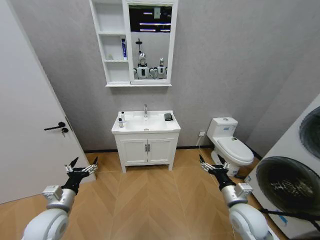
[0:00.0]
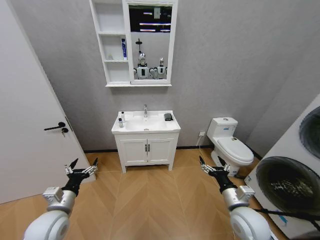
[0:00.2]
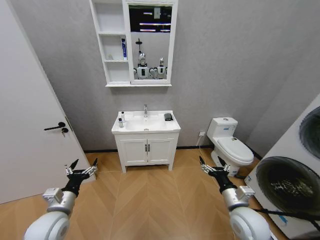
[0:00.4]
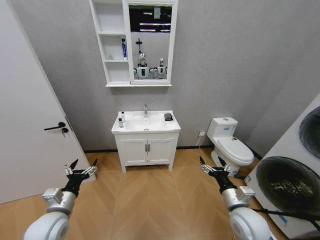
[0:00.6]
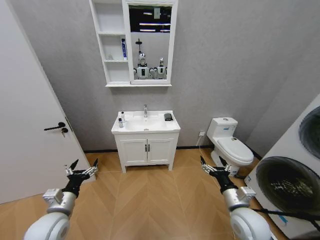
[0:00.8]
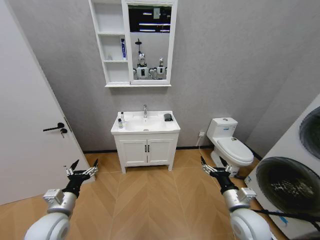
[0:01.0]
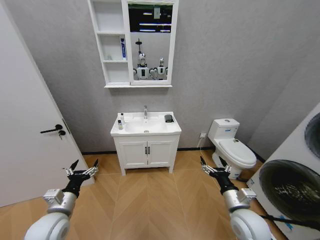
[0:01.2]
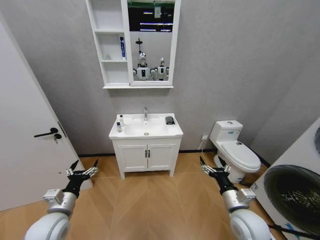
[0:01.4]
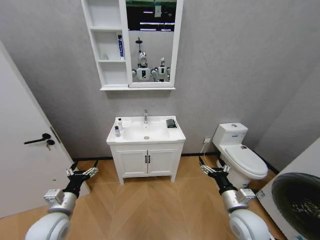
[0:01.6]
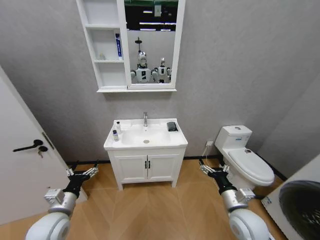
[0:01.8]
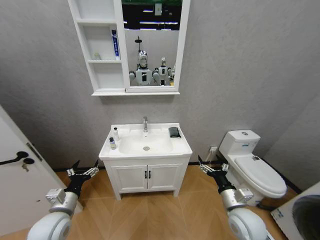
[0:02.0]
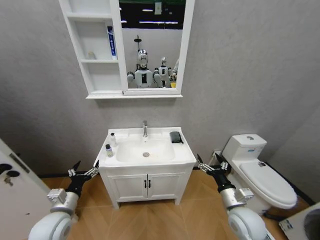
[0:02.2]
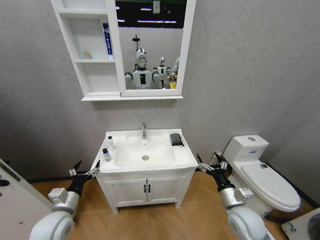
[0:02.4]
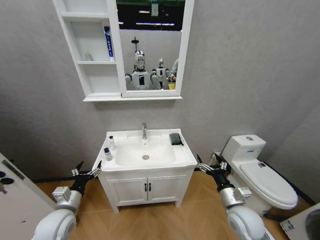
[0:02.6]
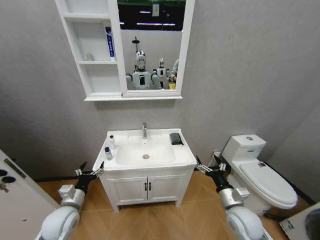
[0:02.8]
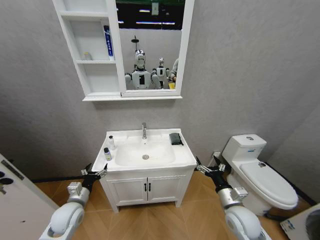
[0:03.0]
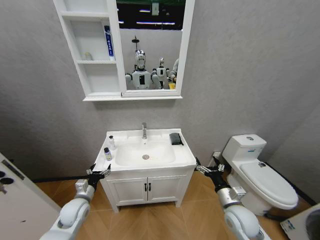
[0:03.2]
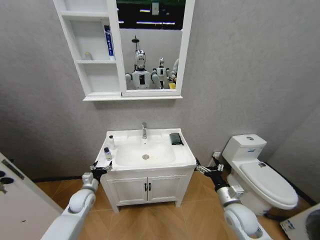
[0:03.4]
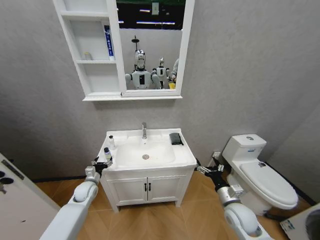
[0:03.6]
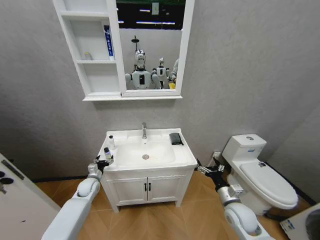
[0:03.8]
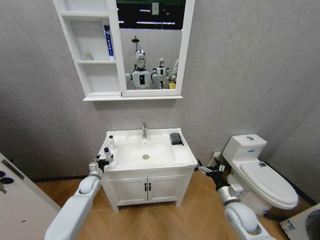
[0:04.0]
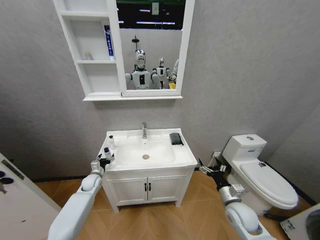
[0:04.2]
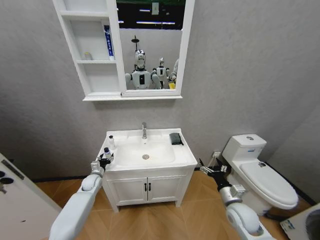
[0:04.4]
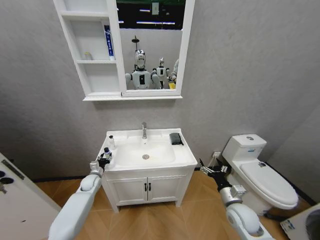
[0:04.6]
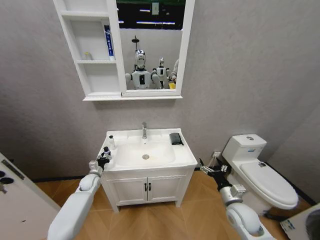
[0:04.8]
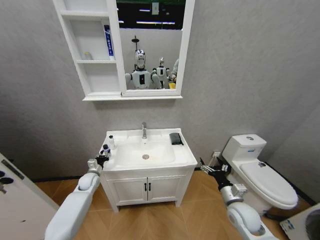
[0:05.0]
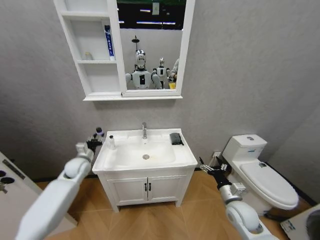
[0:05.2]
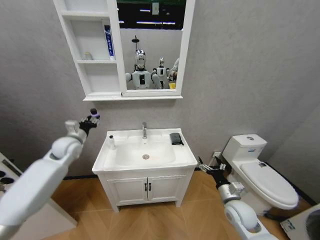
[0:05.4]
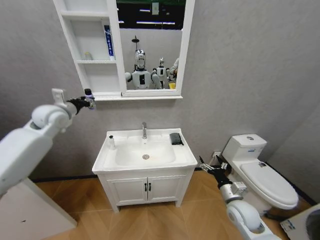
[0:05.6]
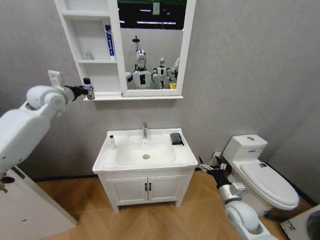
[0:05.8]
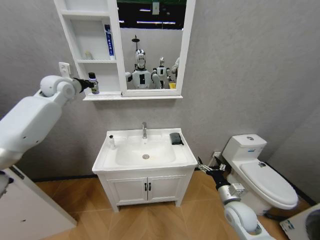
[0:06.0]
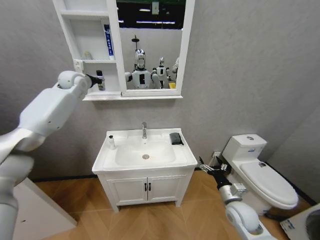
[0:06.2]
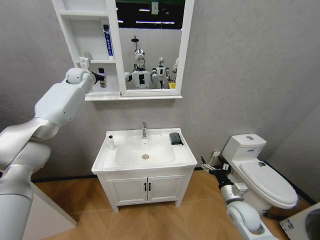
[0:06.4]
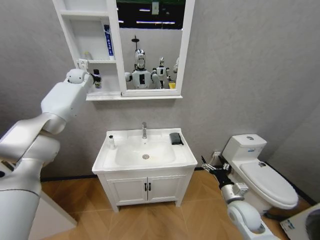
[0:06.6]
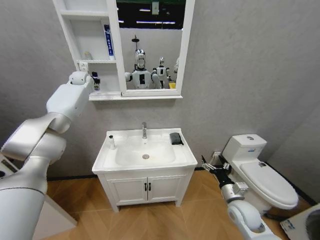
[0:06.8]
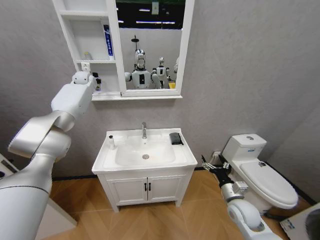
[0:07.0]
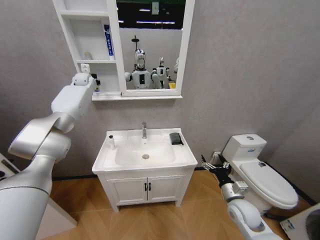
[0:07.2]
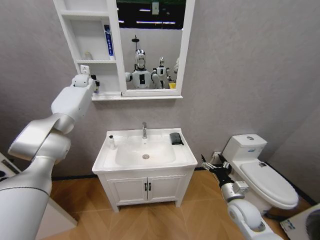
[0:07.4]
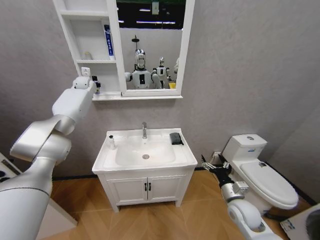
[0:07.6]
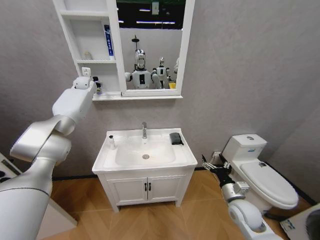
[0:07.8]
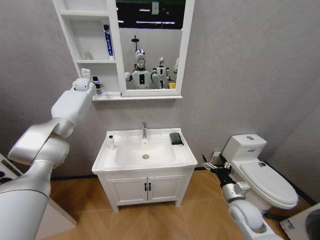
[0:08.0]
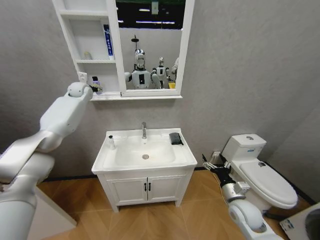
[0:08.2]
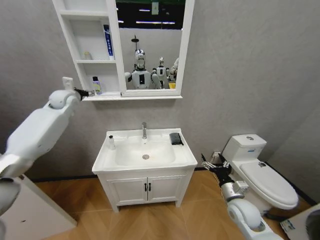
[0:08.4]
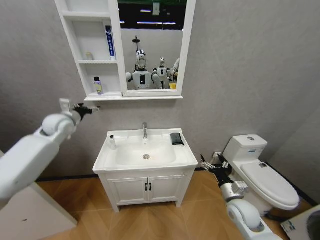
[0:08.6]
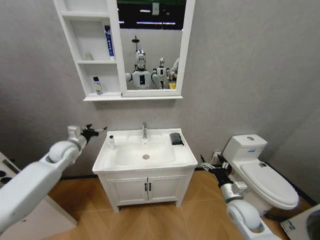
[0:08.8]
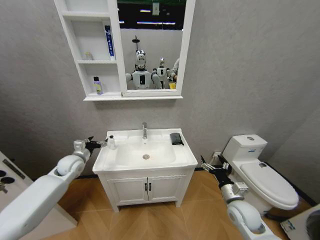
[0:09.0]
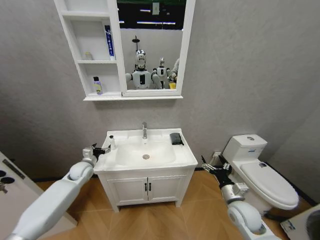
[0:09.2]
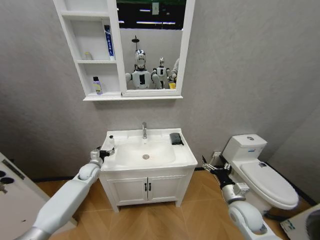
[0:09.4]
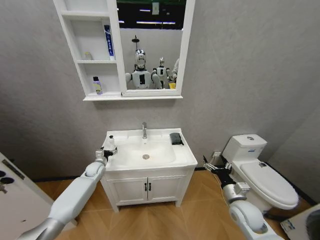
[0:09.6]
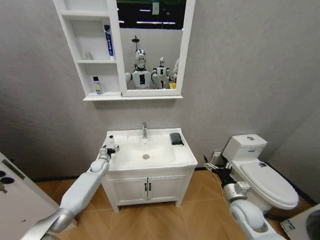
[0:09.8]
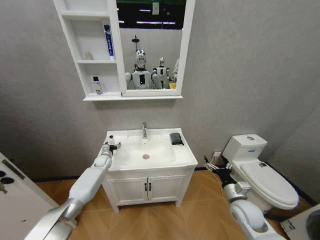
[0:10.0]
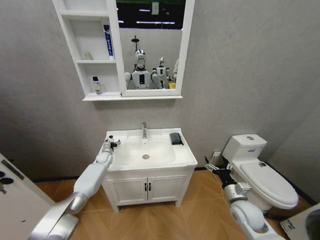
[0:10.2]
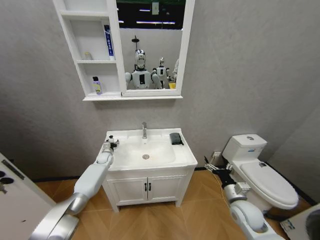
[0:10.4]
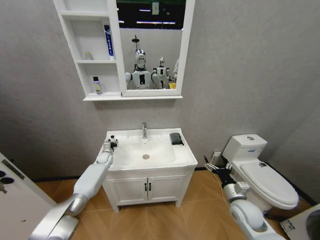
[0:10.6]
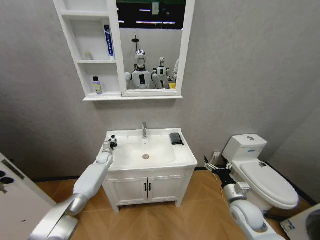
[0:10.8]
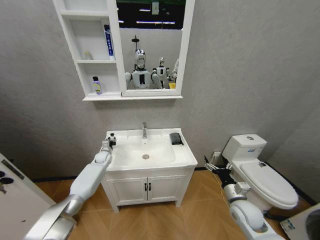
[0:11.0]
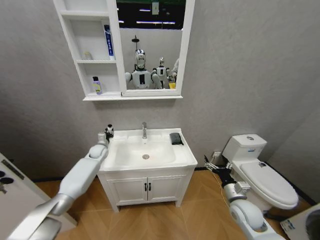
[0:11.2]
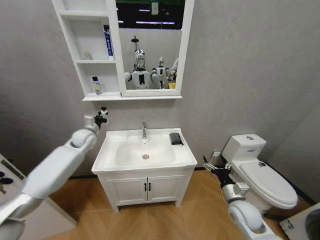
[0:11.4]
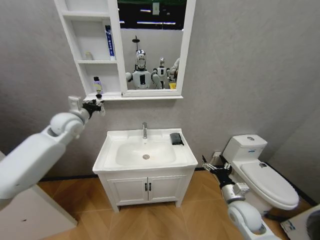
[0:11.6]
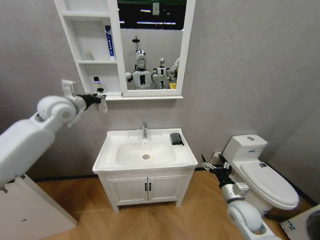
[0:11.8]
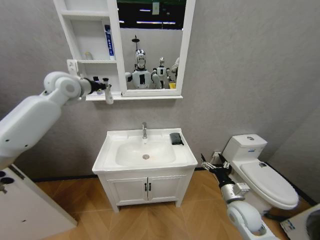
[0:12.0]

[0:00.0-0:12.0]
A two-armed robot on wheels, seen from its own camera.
Task of the whole recording: Move facial cleanser and shampoo from washbasin to cabinet, then wipe washbasin with towel.
0:01.6 to 0:03.0: The left gripper travels downward by about 5 cm.
0:03.0 to 0:04.4: The left gripper goes roughly 20 cm forward and downward.
0:04.4 to 0:06.0: The left gripper is displaced upward by approximately 50 cm, and closes up.
0:06.0 to 0:07.6: The left gripper heads forward, covering about 15 cm.
0:07.6 to 0:09.0: The left gripper moves backward and downward, roughly 40 cm, and opens up.
0:09.0 to 0:10.4: The left gripper goes approximately 20 cm forward, downward and to the right.
0:10.4 to 0:12.0: The left gripper travels upward by about 50 cm, and closes its fingers.

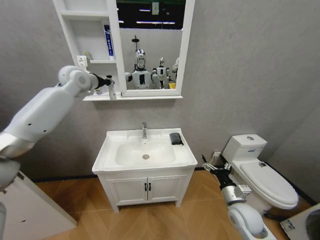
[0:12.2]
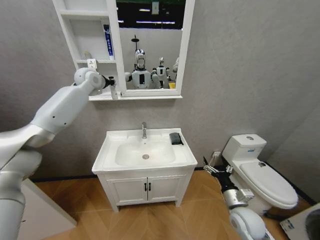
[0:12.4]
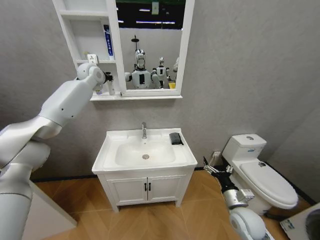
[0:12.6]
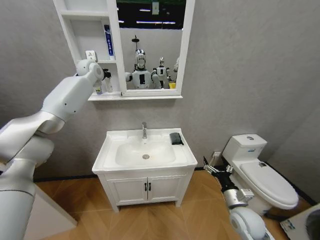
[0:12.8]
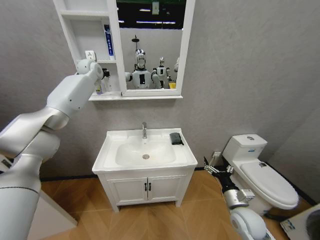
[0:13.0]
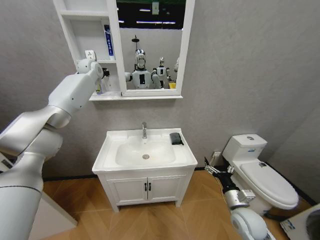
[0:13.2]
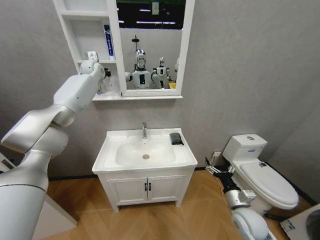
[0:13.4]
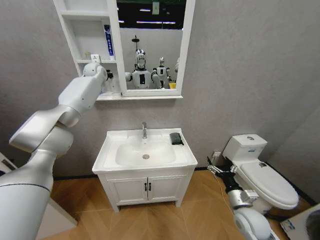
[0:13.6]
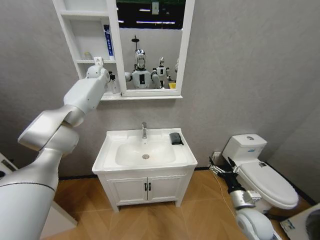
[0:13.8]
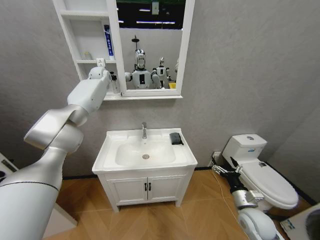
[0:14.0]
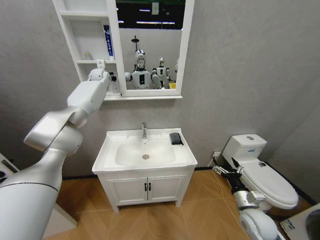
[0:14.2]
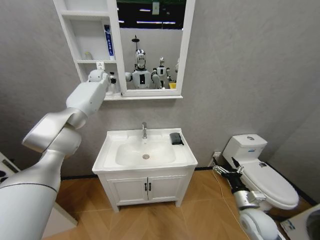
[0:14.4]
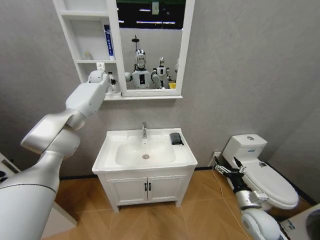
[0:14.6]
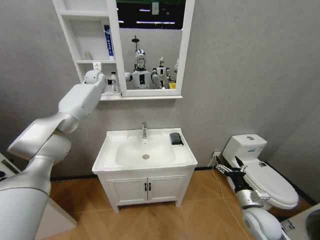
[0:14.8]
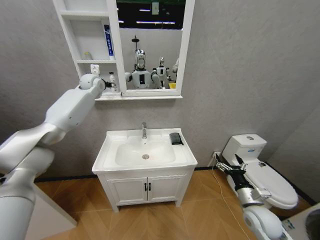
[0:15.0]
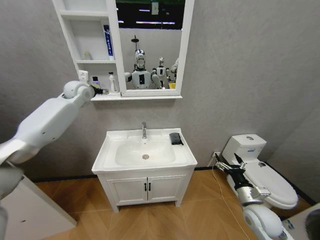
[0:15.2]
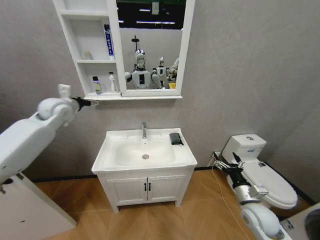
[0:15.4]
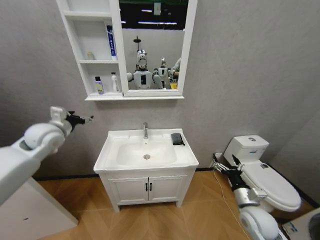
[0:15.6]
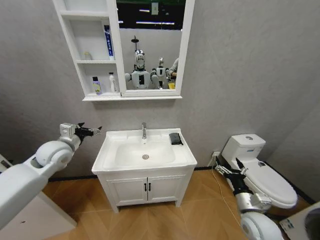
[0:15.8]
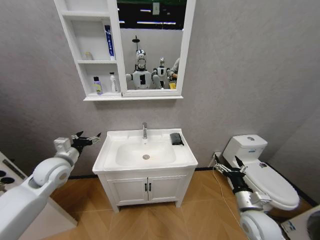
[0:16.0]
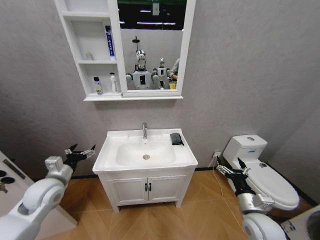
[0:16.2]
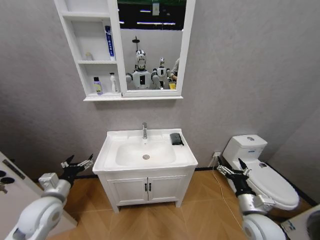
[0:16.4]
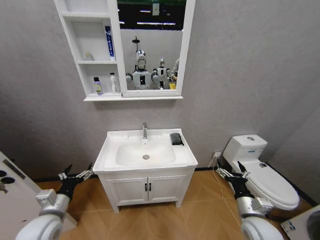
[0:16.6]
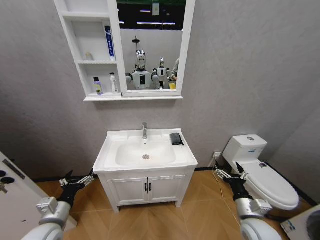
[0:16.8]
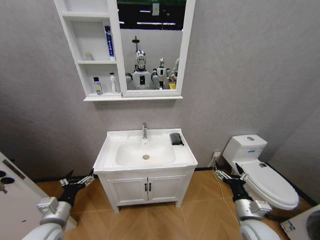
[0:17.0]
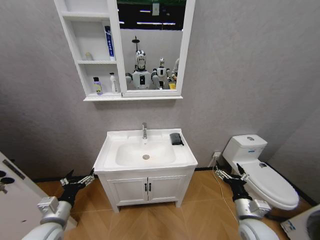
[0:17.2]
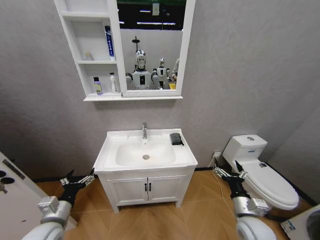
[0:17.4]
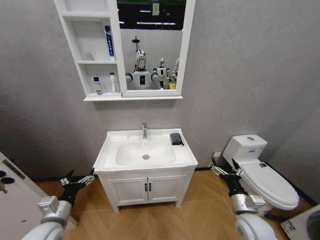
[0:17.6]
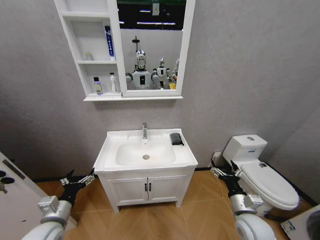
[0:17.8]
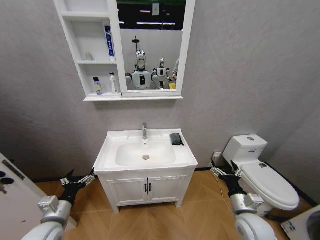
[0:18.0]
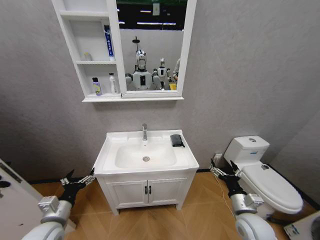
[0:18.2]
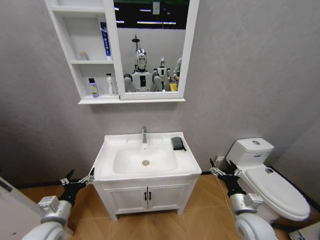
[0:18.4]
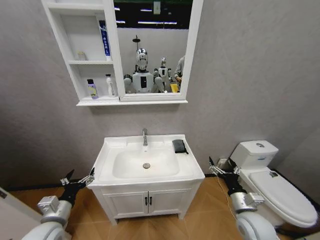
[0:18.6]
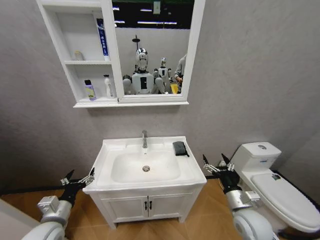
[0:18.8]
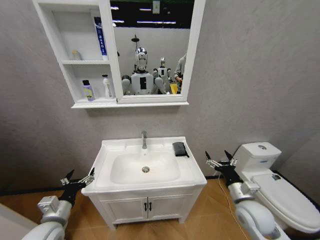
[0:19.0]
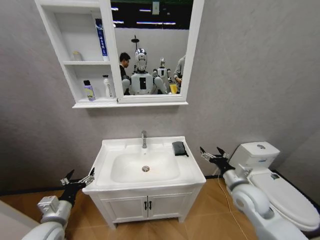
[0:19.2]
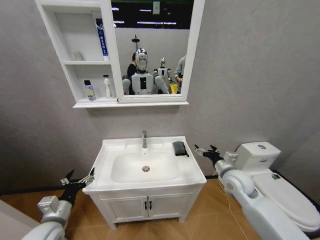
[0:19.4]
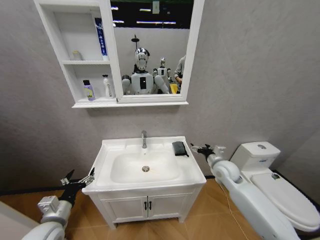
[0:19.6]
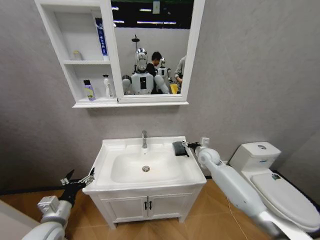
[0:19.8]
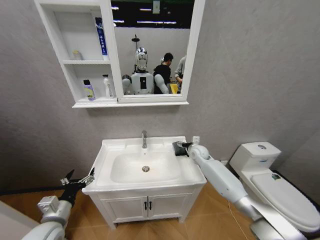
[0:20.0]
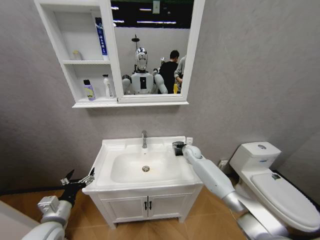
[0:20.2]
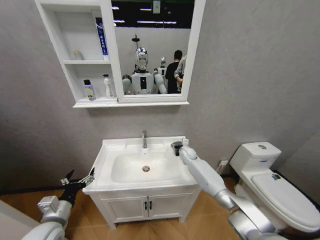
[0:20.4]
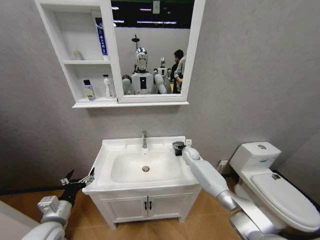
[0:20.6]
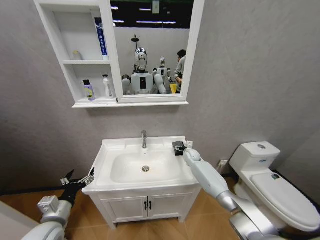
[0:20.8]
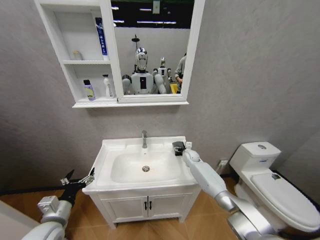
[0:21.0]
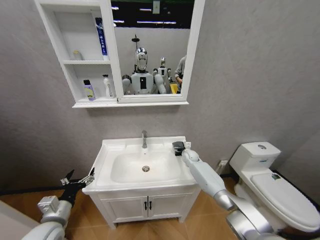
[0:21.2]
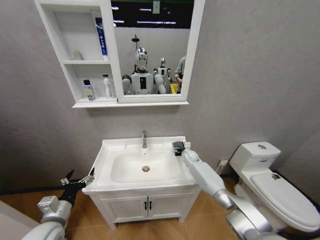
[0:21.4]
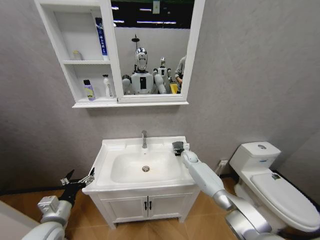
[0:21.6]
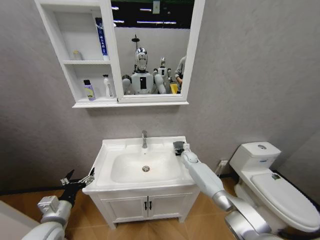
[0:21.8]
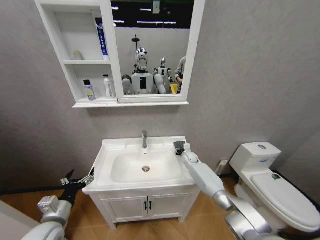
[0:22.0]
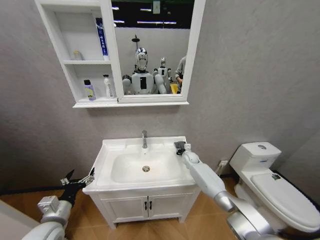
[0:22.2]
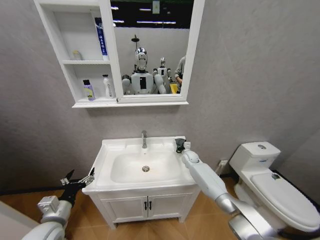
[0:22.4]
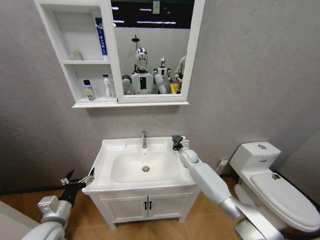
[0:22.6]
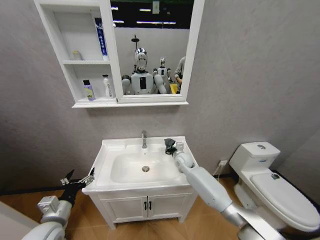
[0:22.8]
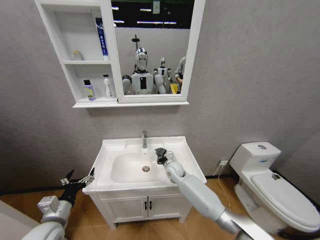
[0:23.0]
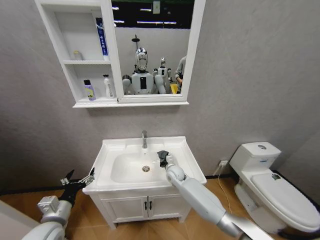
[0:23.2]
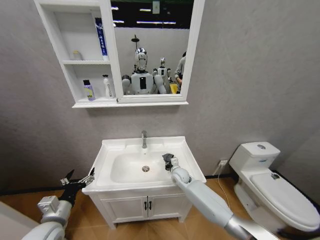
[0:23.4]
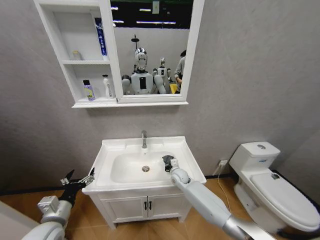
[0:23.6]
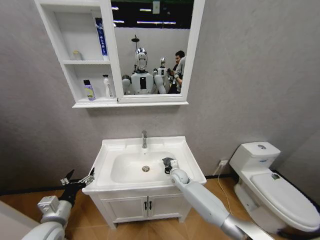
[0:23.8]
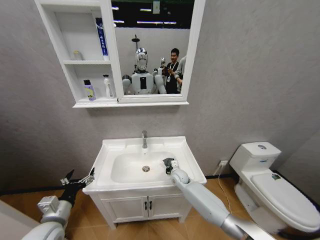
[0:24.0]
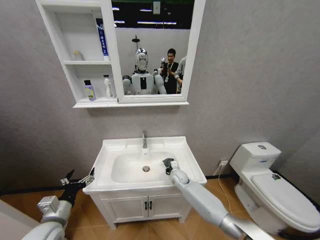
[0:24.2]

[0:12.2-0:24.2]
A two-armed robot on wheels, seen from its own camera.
Task of the whole recording: Move facial cleanser and shampoo from washbasin to cabinet, then wipe washbasin with towel.
0:12.2 to 0:13.8: The left gripper moves forward, approximately 15 cm.
0:13.8 to 0:15.2: The left gripper travels backward and to the left by about 15 cm, and opens.
0:15.2 to 0:16.6: The left gripper moves backward and downward, some 50 cm. Meanwhile the right gripper ends up approximately 5 cm from where it was.
0:16.6 to 0:18.2: There are only small adjustments of the grippers.
0:18.2 to 0:19.8: The right gripper shifts about 25 cm forward.
0:19.8 to 0:21.2: The right gripper heads downward and forward, covering about 15 cm.
0:21.2 to 0:22.6: The right gripper moves about 5 cm, and closes up.
0:22.6 to 0:24.2: The right gripper moves downward, backward and to the left, some 15 cm.
